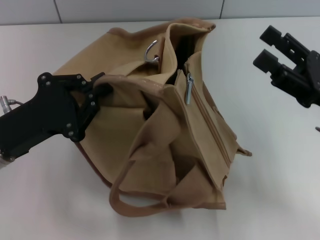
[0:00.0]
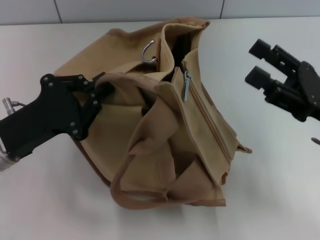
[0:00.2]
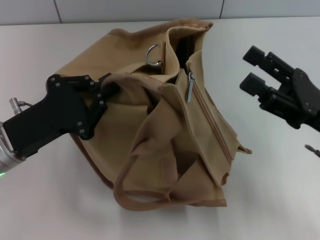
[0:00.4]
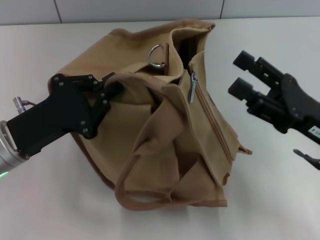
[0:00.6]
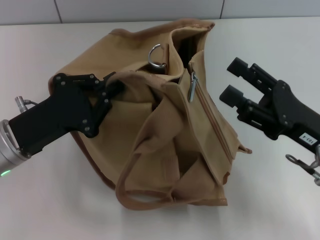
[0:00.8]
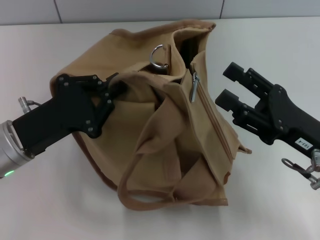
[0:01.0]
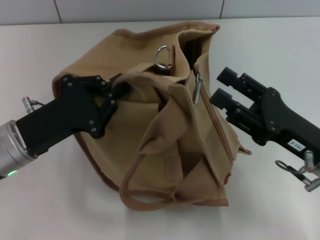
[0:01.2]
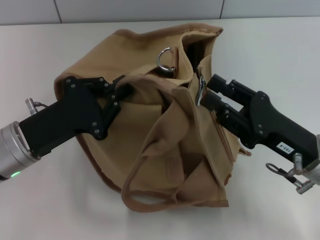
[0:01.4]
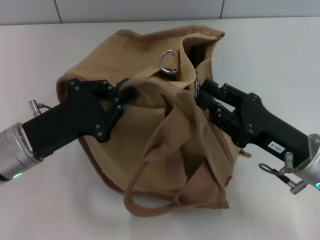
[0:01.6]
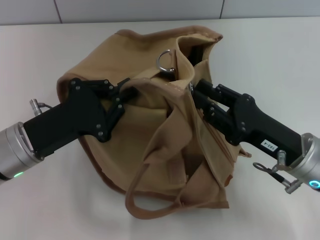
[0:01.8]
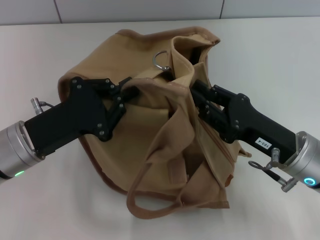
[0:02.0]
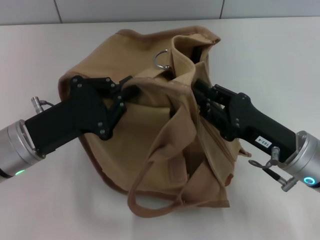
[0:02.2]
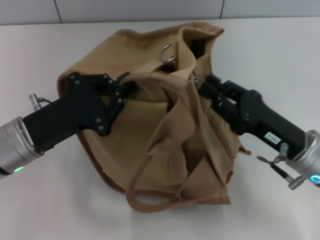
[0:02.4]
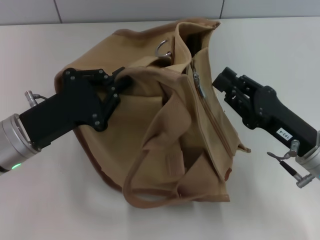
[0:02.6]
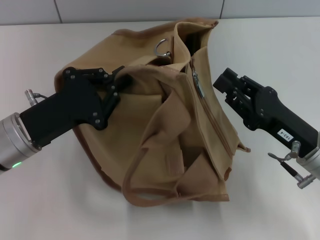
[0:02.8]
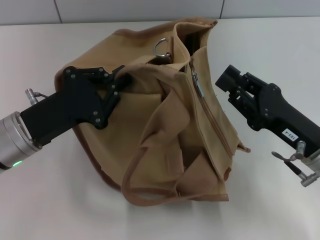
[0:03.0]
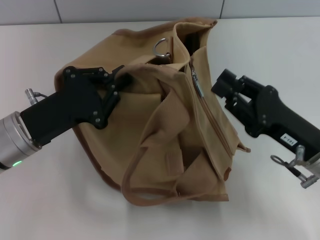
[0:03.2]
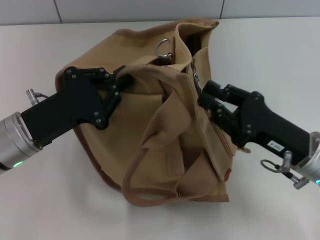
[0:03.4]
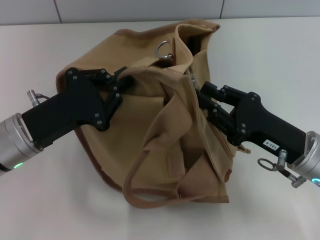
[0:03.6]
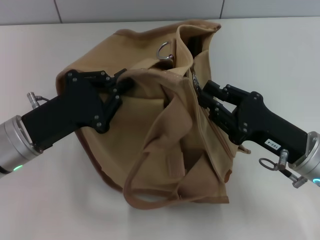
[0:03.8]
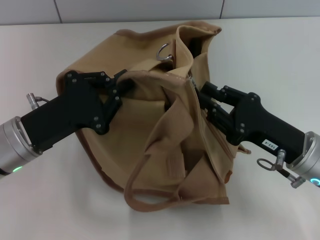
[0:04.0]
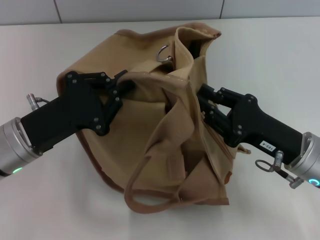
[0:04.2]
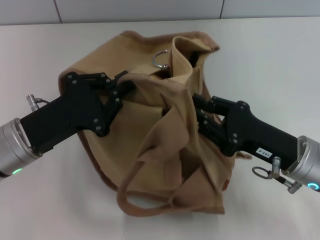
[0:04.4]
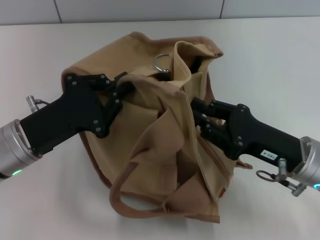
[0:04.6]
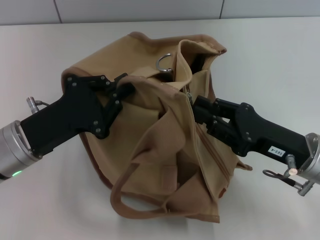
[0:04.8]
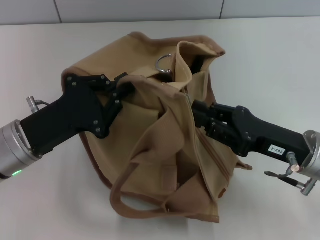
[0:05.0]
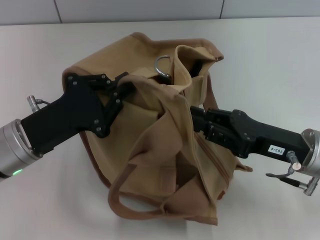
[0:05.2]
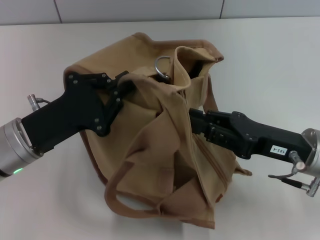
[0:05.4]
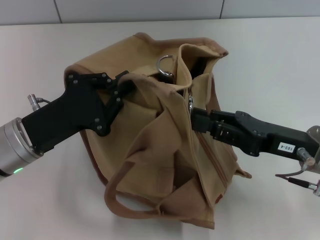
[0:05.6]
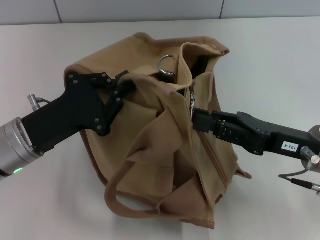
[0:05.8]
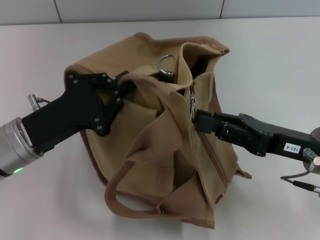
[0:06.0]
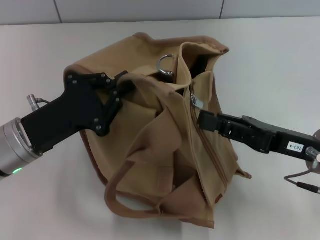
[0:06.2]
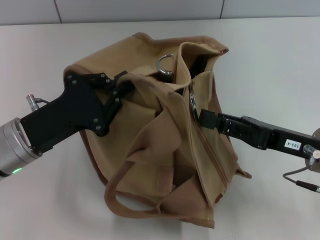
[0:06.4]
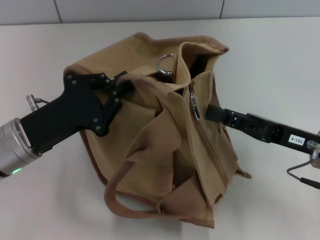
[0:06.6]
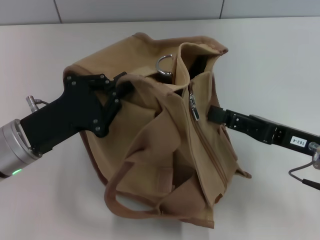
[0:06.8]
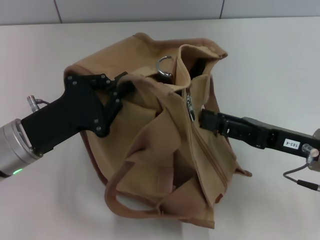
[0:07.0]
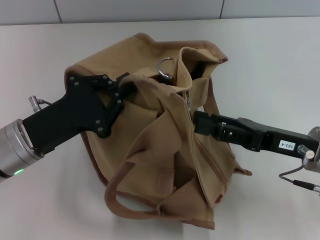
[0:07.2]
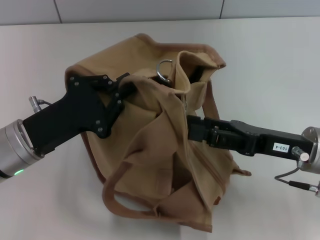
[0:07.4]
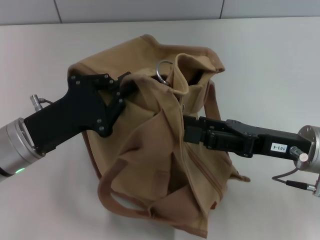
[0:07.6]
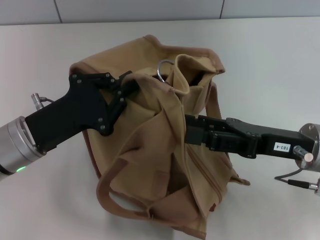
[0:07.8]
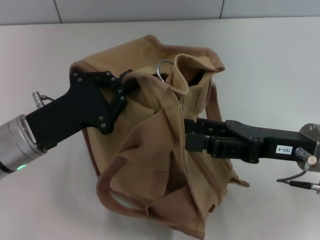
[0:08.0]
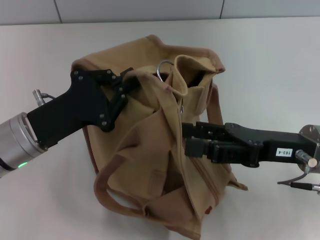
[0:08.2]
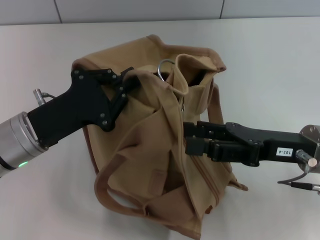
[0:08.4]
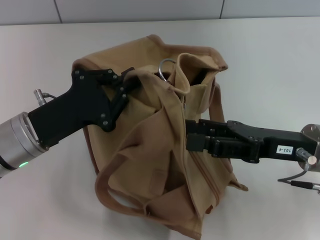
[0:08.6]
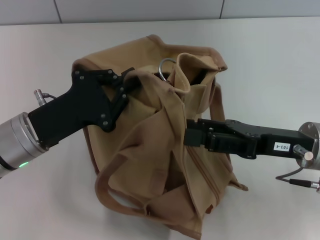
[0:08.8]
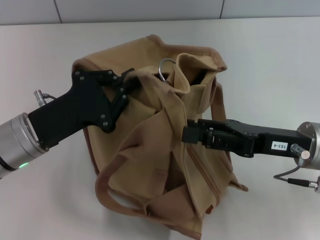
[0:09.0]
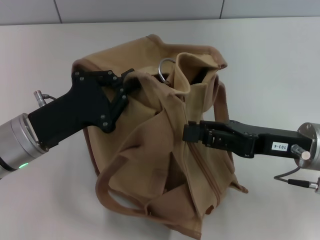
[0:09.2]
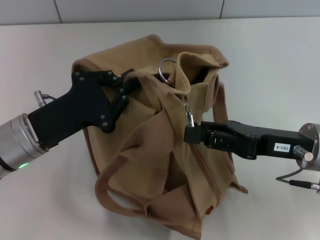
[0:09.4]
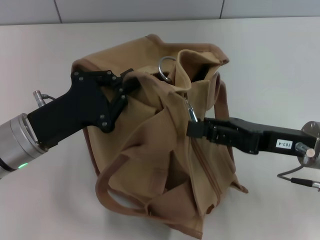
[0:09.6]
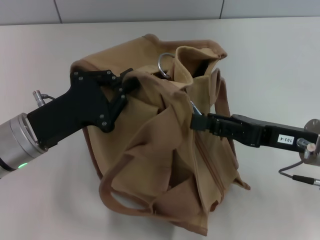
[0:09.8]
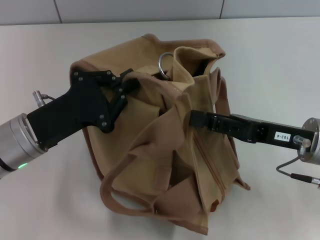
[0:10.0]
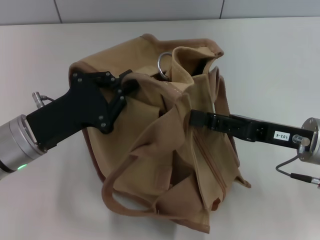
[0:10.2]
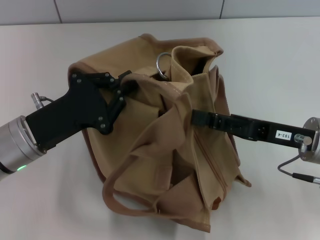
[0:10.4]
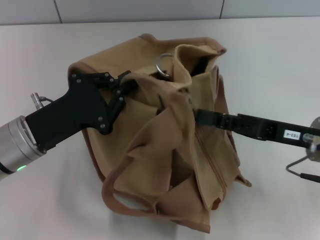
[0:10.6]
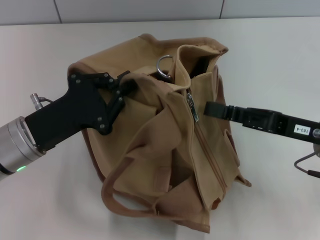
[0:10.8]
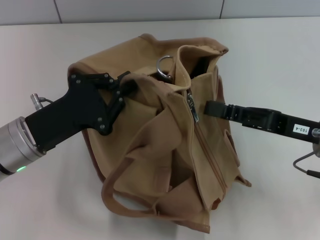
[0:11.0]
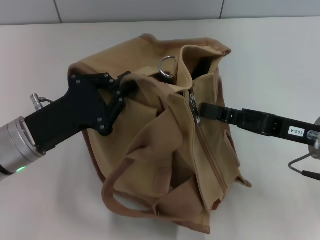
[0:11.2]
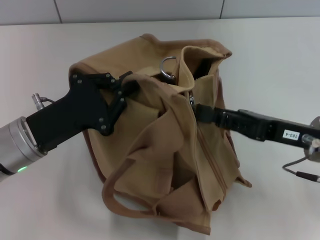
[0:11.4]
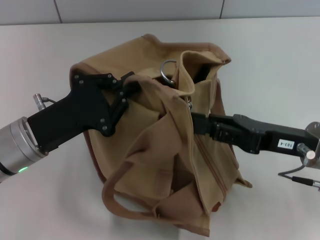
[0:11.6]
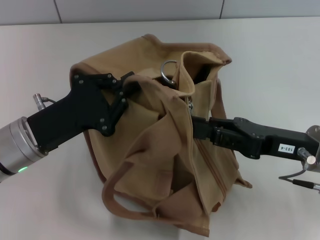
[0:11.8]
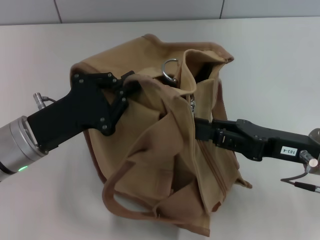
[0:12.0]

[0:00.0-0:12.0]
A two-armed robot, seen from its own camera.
0:00.0 to 0:01.6: The right gripper heads to the left, covering about 5 cm, and closes its fingers.
0:06.0 to 0:07.6: The right gripper opens its fingers.
0:07.6 to 0:09.0: The grippers stay close to where they were, moving slightly.
0:09.0 to 0:10.4: The right gripper closes its fingers.
0:10.4 to 0:12.0: The grippers stay close to where they were, moving slightly.

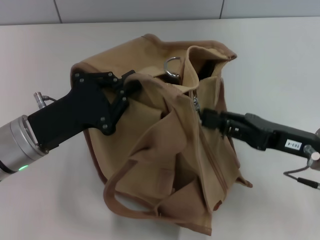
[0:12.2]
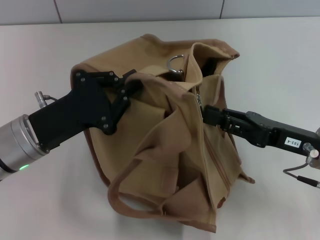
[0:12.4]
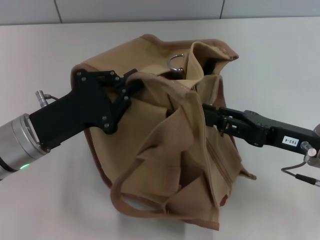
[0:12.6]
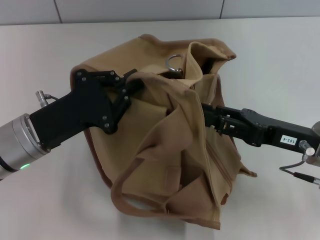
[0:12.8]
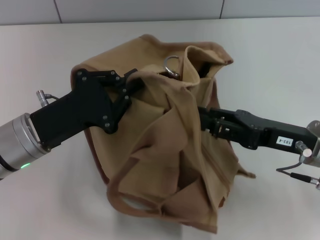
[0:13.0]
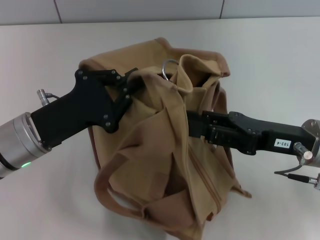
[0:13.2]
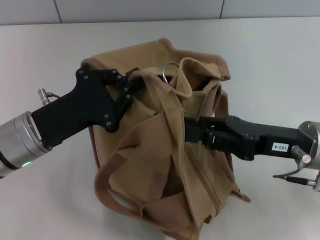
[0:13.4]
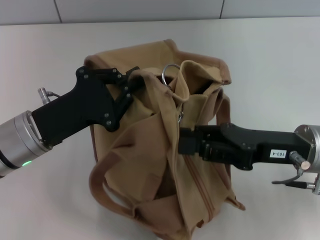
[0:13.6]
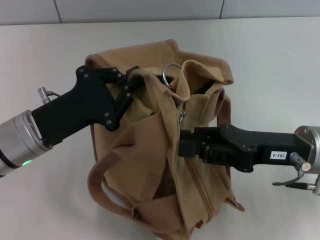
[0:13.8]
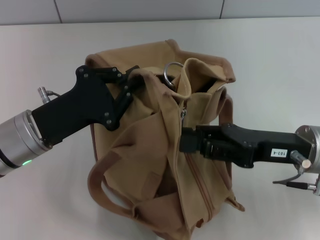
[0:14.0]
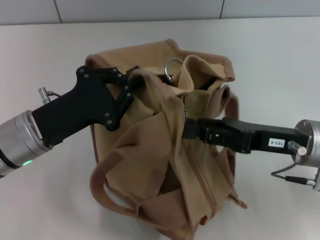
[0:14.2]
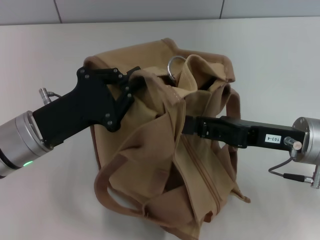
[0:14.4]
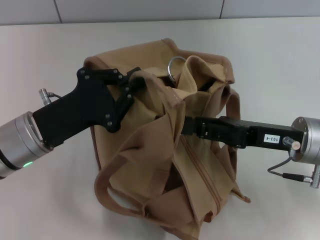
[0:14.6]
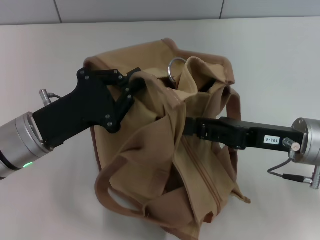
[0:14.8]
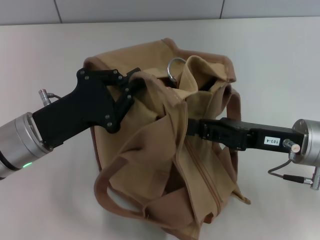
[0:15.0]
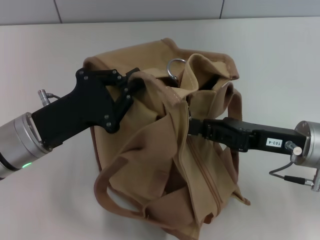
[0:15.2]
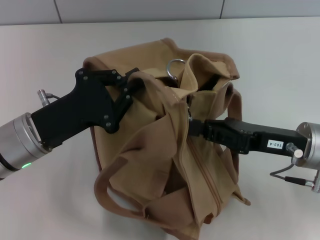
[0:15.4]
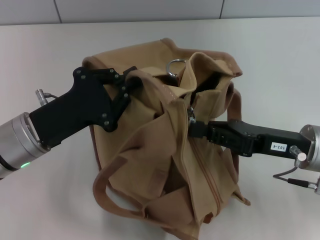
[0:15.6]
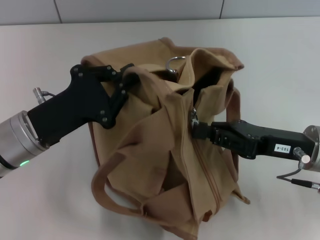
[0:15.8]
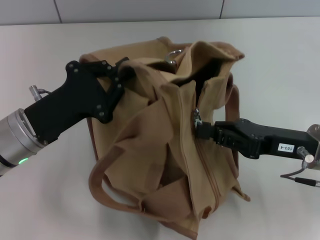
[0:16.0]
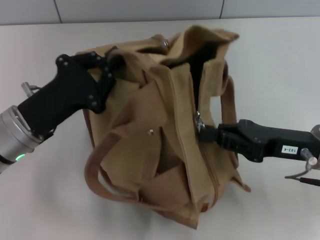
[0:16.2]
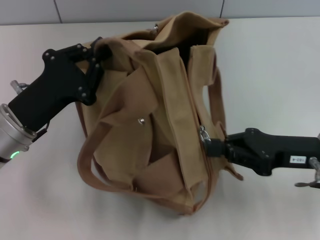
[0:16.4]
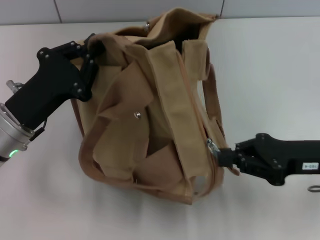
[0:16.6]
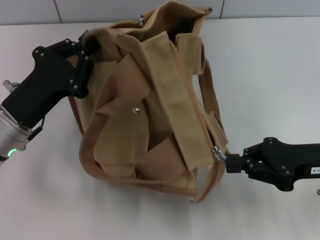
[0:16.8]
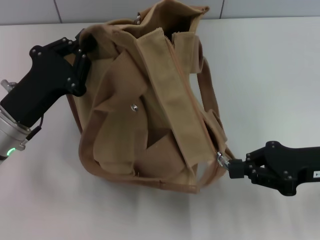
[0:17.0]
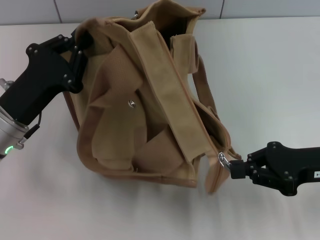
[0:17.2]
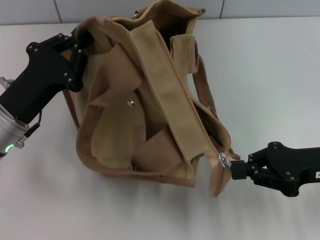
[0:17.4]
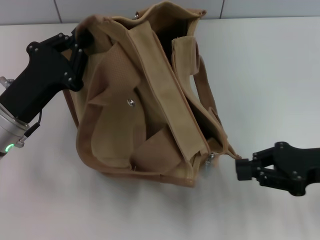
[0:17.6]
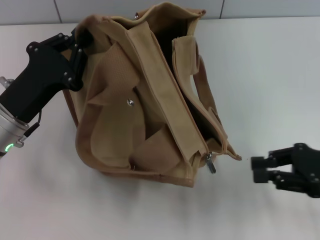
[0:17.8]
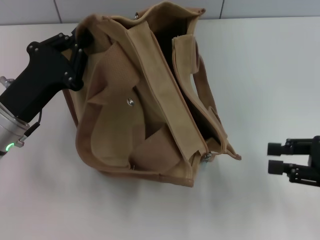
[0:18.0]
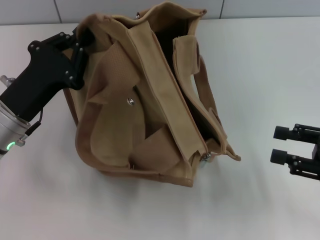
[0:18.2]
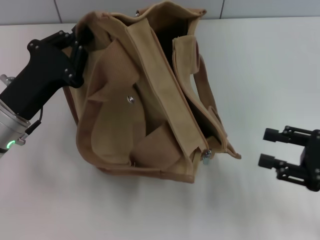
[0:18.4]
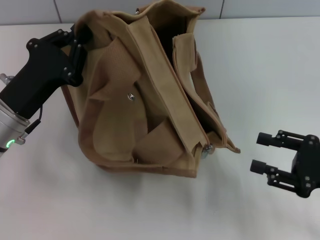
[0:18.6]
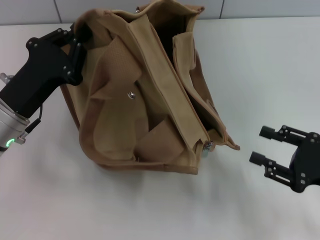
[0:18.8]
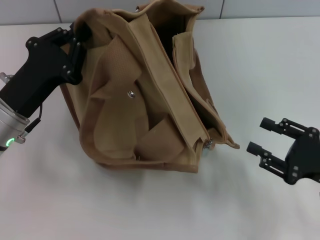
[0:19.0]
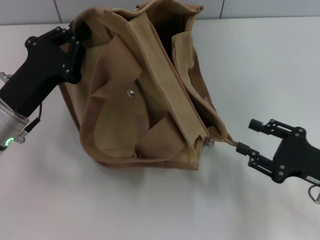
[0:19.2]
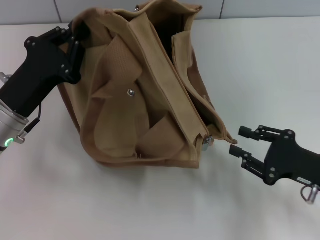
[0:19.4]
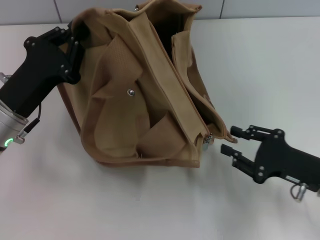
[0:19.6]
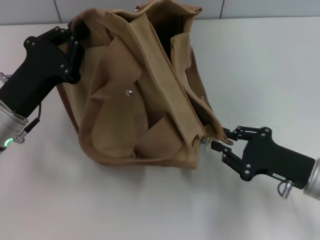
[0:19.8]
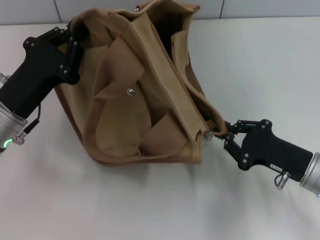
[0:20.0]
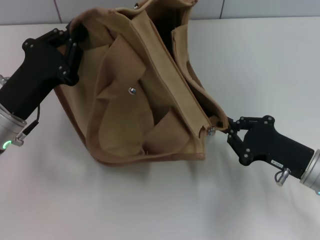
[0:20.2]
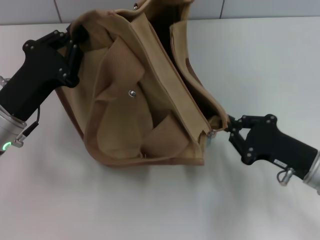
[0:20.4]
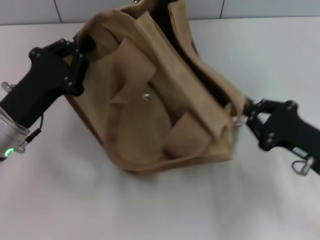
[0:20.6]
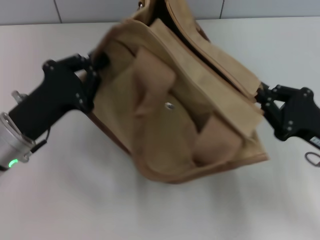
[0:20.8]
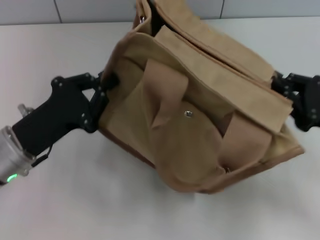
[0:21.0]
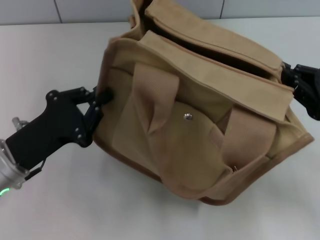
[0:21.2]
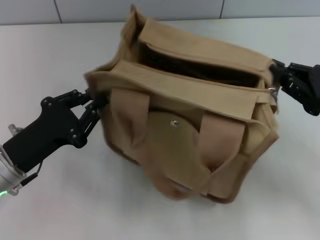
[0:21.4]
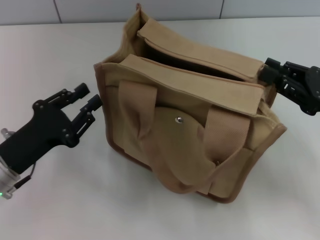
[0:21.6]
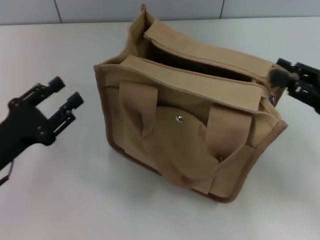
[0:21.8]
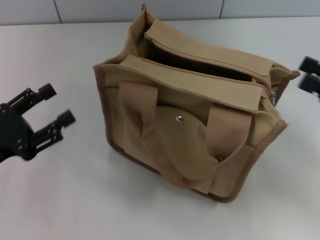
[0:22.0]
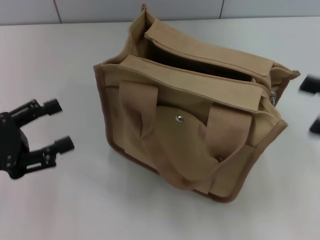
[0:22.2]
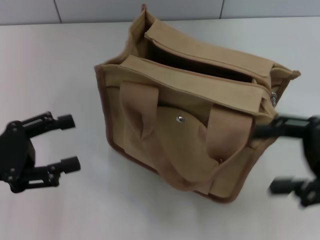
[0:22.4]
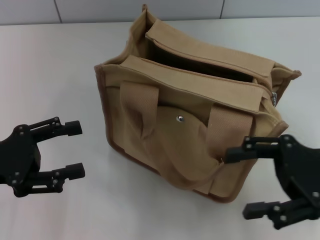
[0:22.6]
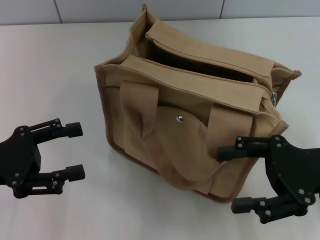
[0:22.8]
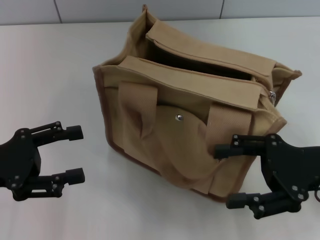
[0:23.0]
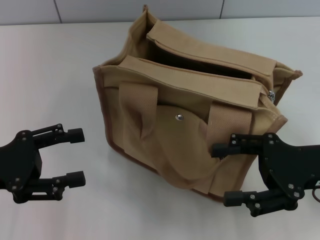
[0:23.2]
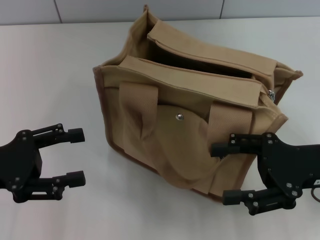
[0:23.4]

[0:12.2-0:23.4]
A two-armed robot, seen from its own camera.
Step, 0:12.2 to 0:17.6: Pull open the zipper with your right hand.
Step, 0:17.8 to 0:21.4: Grab the bag with your left hand.
0:13.8 to 0:15.4: The grippers move only a little.
0:15.4 to 0:17.0: The right gripper travels to the right by roughly 5 cm.
0:17.0 to 0:18.6: The right gripper shifts by some 5 cm, and opens up.
0:18.6 to 0:20.2: The right gripper is displaced to the left by roughly 5 cm, and closes up.
0:20.2 to 0:21.8: The right gripper shifts about 10 cm upward and to the right; the left gripper shifts roughly 5 cm backward, and opens its fingers.
0:21.8 to 0:23.4: The right gripper shifts some 5 cm to the left, and opens up. The left gripper heads upward, covering some 5 cm, and opens.
